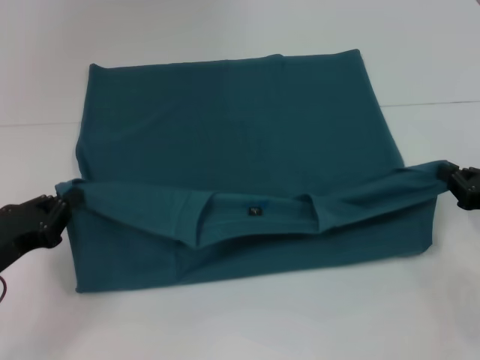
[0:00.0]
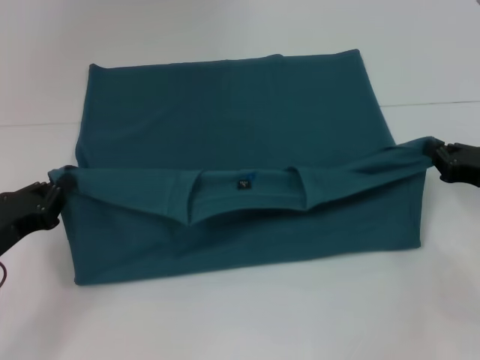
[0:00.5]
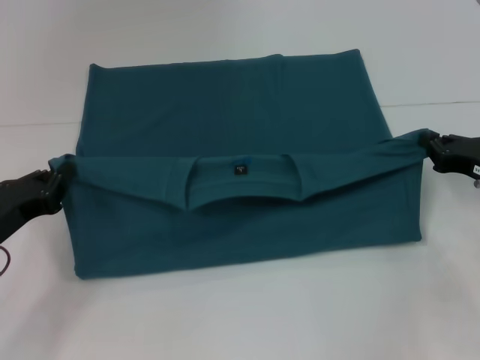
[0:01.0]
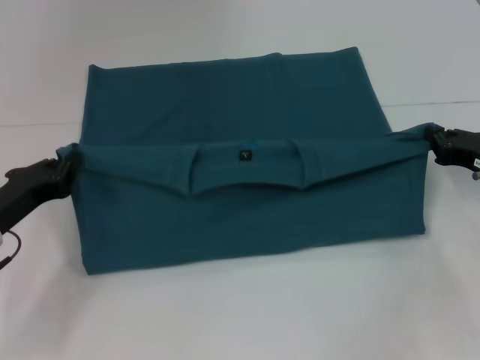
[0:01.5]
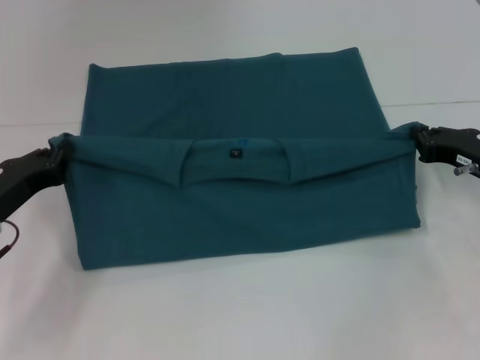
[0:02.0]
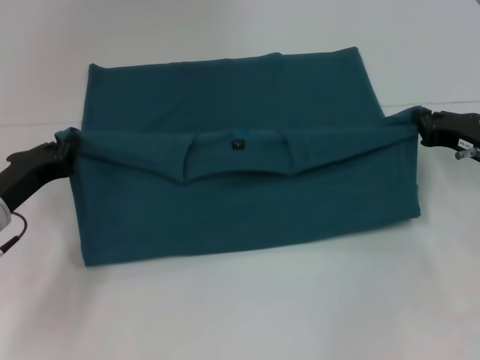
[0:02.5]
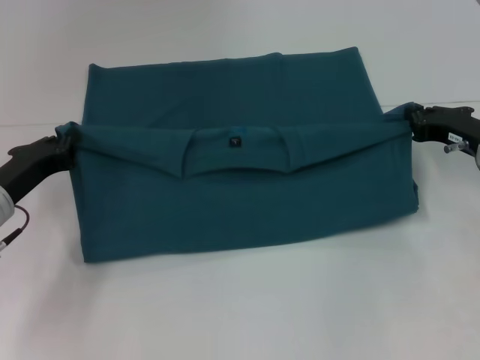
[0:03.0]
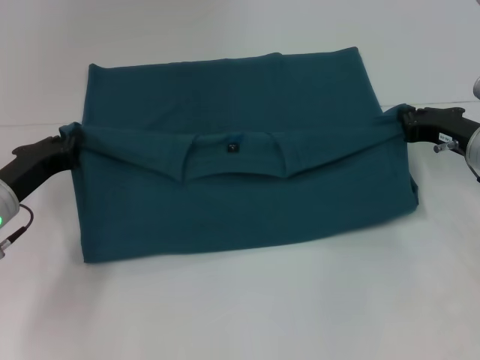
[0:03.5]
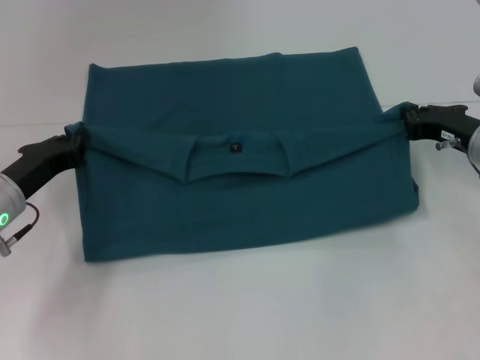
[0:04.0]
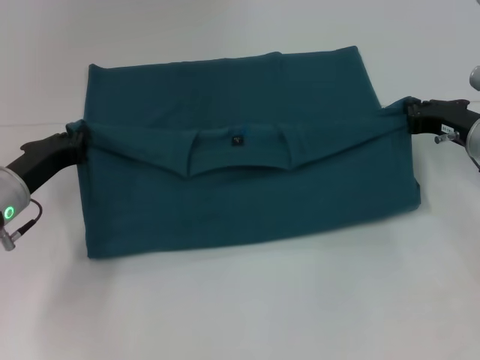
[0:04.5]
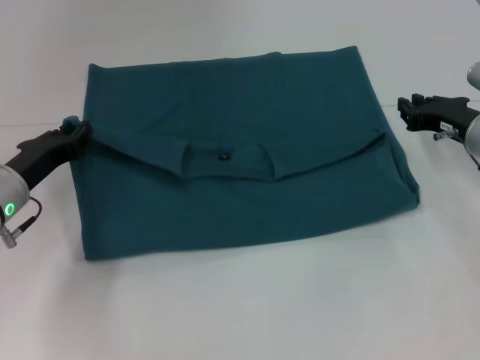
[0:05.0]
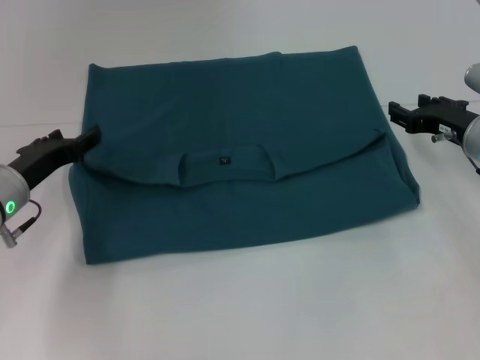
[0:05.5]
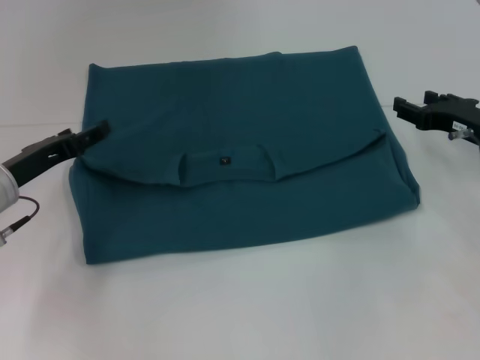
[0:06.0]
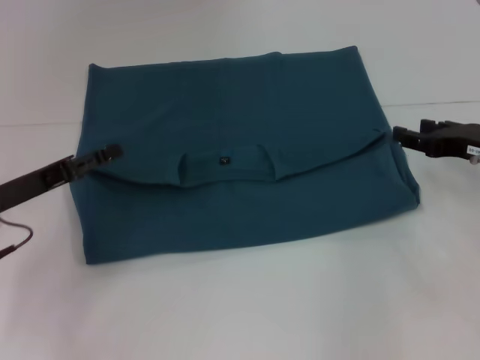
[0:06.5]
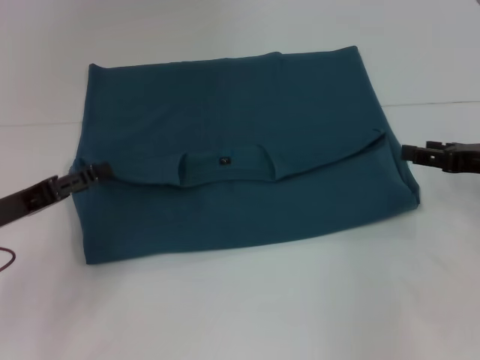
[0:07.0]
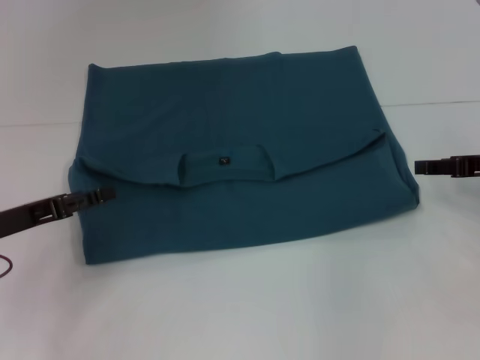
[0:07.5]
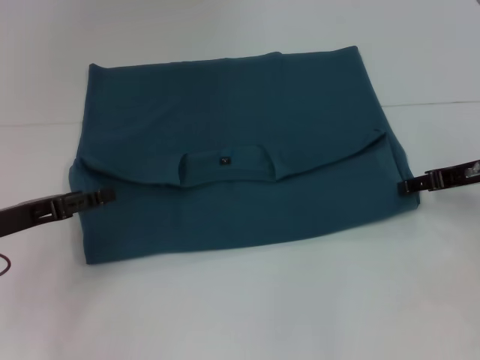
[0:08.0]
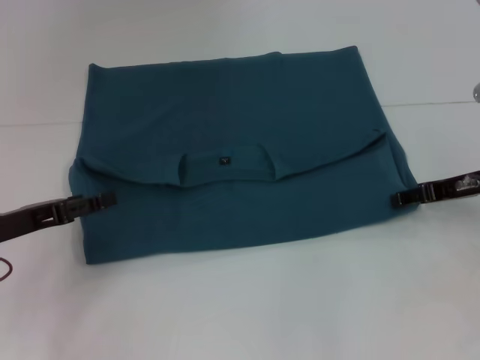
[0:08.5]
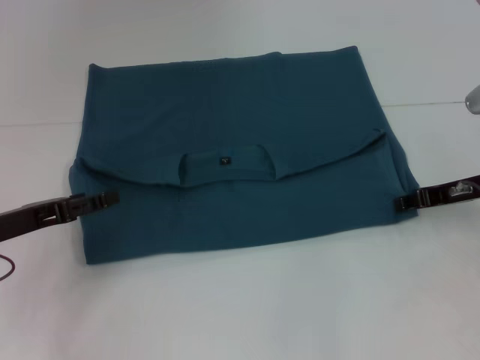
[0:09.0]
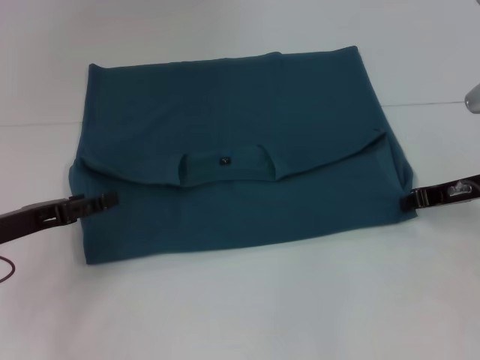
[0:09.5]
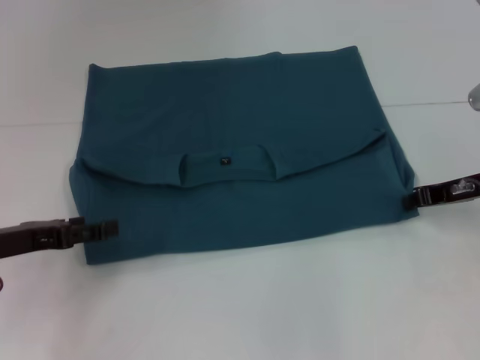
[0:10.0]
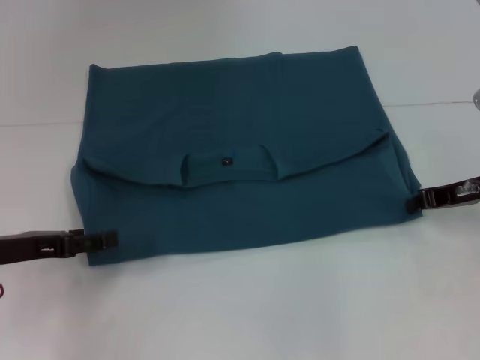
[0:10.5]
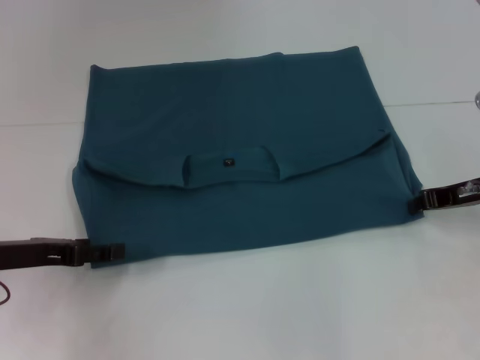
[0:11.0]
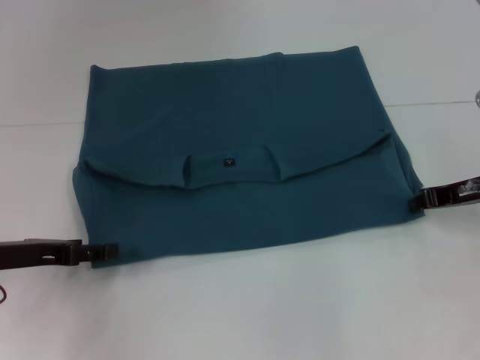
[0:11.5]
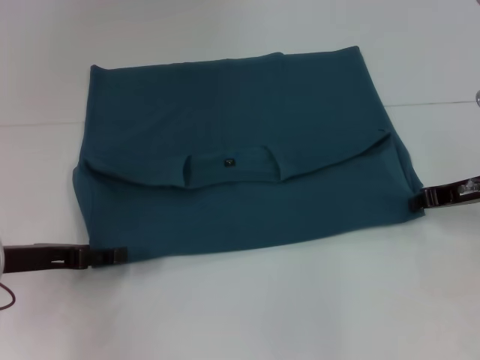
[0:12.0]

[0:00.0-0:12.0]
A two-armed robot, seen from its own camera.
Step, 0:00.0 to 0:05.5: Fold the clothes to the left.
Step, 0:00.0 to 0:05.5: Fold the clothes to the right.
0:00.0 to 0:02.0: Both grippers travel together forward, some 5 cm.
0:02.0 to 0:04.0: The grippers make only small movements.
0:04.0 to 0:06.0: The right gripper opens its fingers. Meanwhile the left gripper opens its fingers.
0:06.0 to 0:08.0: The left gripper shifts approximately 5 cm backward.
0:08.0 to 0:10.0: The right gripper closes up.
0:10.0 to 0:12.0: The grippers stay close to where they were, moving slightly.

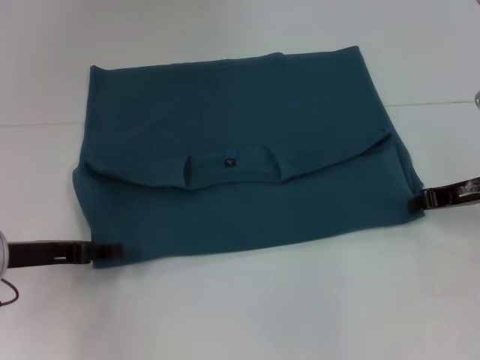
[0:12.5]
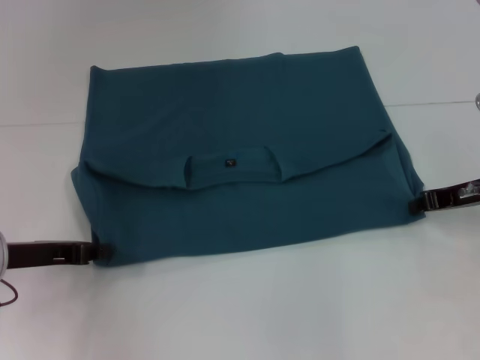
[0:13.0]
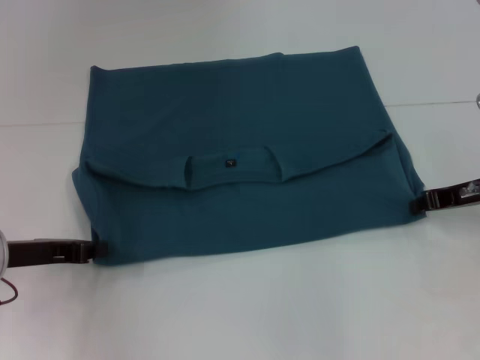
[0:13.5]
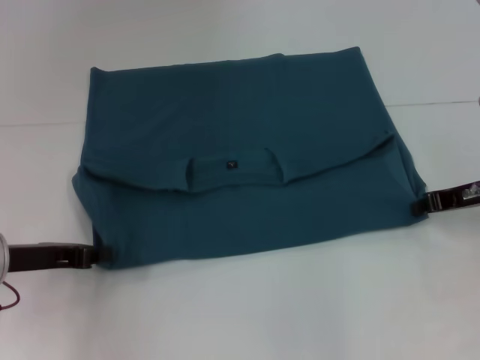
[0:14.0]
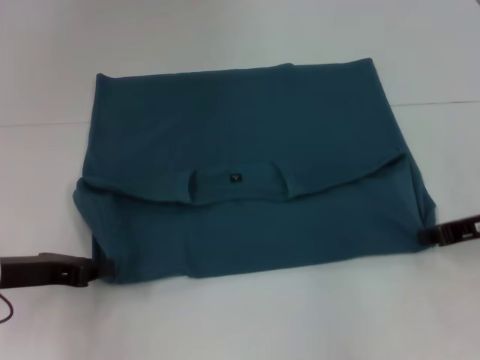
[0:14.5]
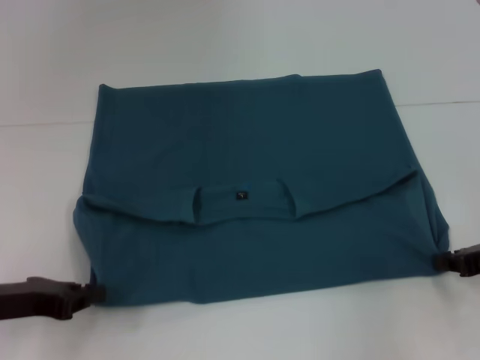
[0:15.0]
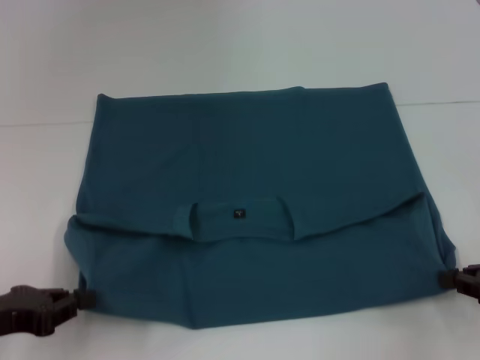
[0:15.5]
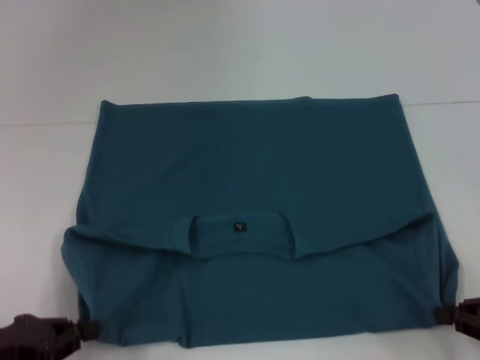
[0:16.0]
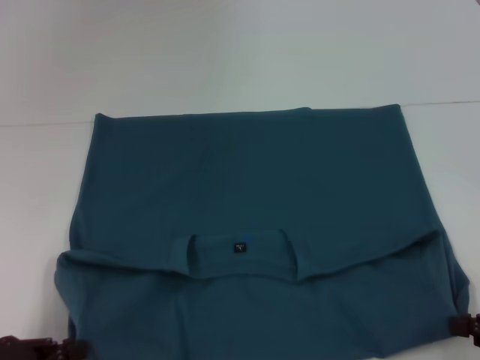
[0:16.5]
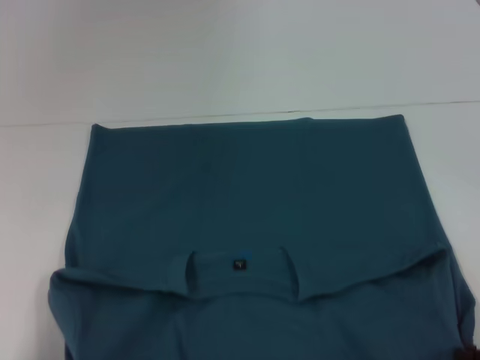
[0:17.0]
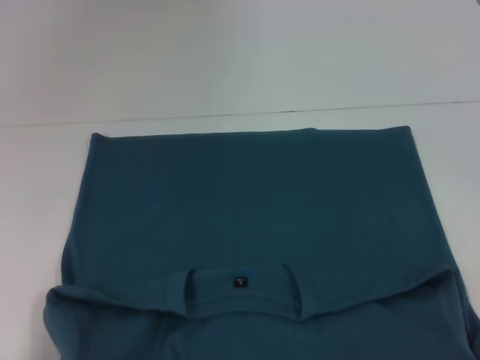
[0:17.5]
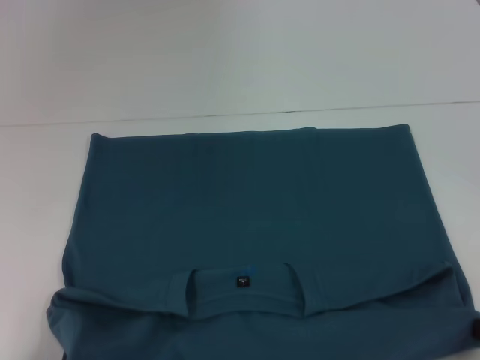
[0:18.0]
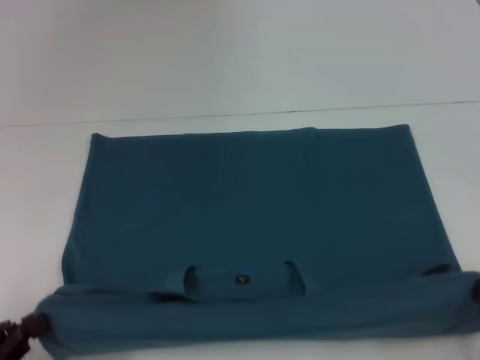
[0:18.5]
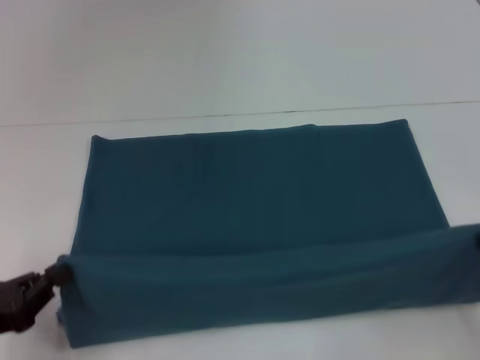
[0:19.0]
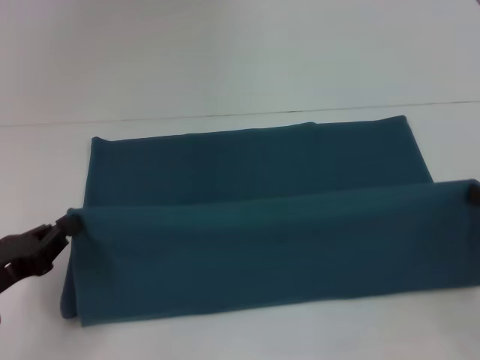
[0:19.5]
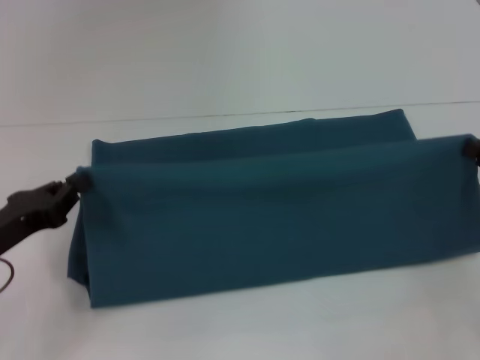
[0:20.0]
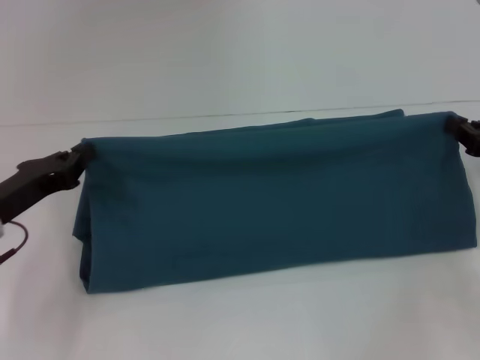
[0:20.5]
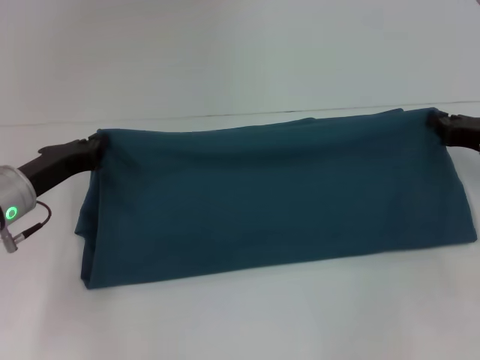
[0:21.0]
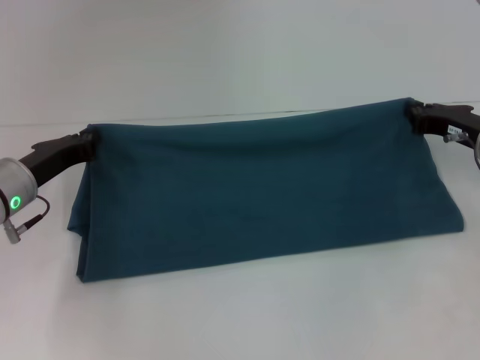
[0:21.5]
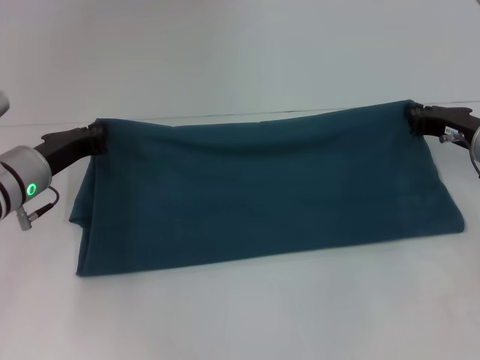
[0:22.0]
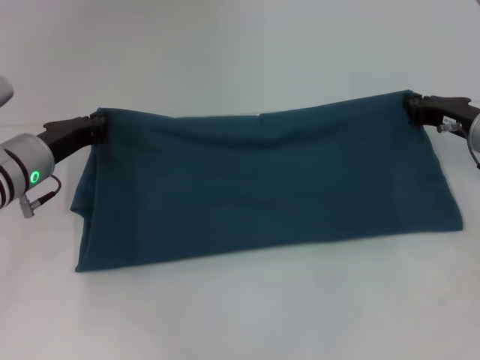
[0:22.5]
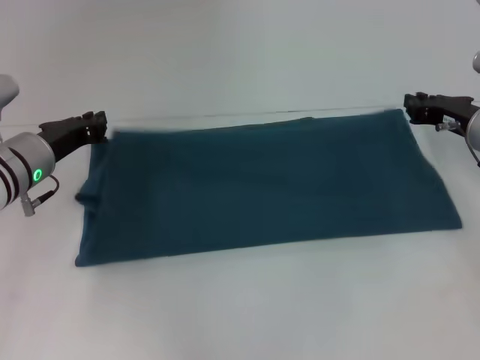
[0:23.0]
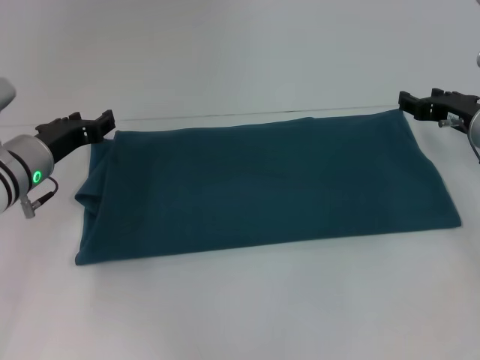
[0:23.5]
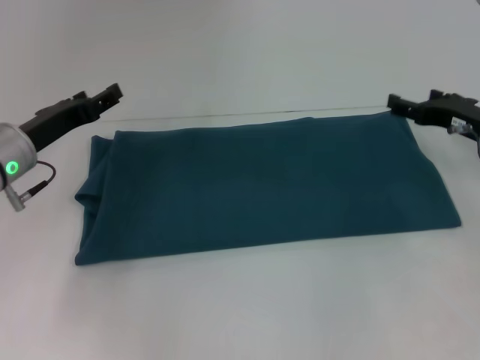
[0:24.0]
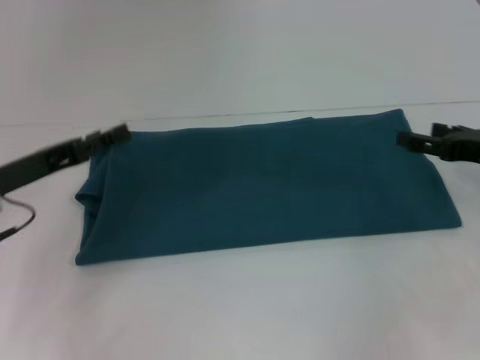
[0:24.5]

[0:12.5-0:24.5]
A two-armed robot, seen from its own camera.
Step, 0:12.5 to 0:17.0: Pull the clothes with your left hand.
Step, 0:12.5 to 0:17.0: Pull the clothes with your right hand.
Step, 0:17.5 to 0:23.0: Fold the clothes to the left.
Step, 0:17.5 to 0:23.0: Fold the clothes to the right.
0:12.5 to 0:14.5: The left gripper closes up.
0:14.5 to 0:16.5: Both grippers travel together backward, roughly 15 cm.
0:16.5 to 0:18.5: The grippers stay close to where they were, moving slightly.
0:18.5 to 0:20.5: The two grippers go about 15 cm forward.
0:20.5 to 0:22.5: The left gripper travels forward by roughly 10 cm. The right gripper is displaced forward and to the left by about 10 cm.
0:22.5 to 0:24.5: The two grippers go approximately 5 cm backward. The left gripper opens up. The right gripper opens.

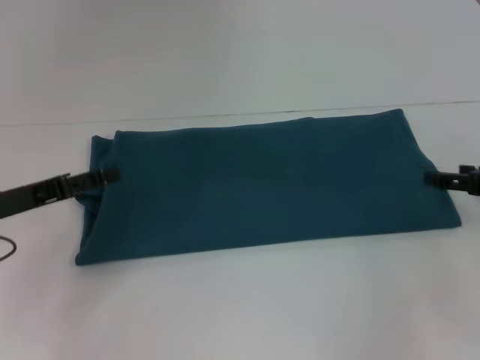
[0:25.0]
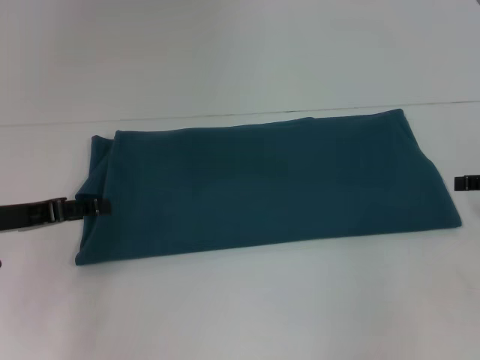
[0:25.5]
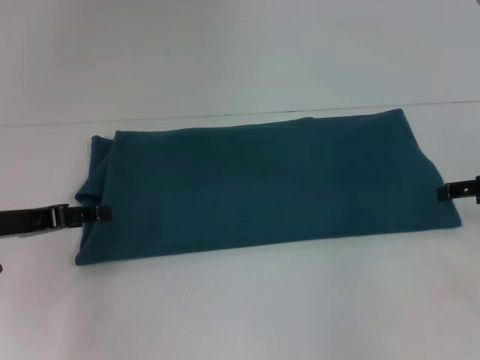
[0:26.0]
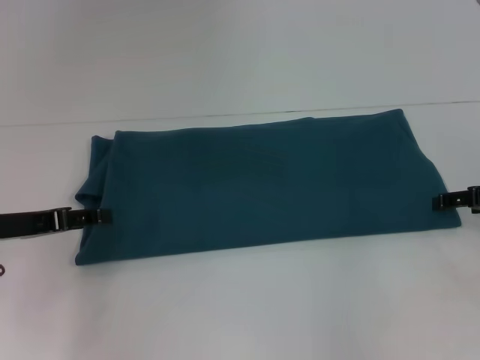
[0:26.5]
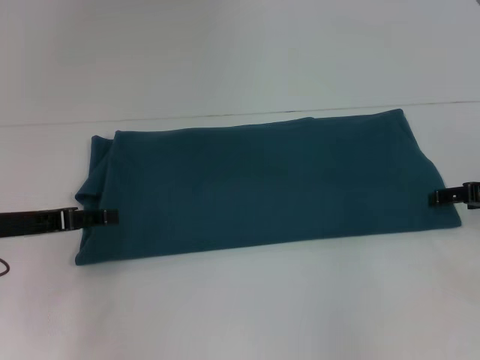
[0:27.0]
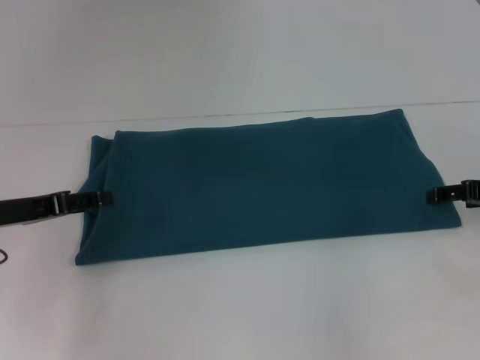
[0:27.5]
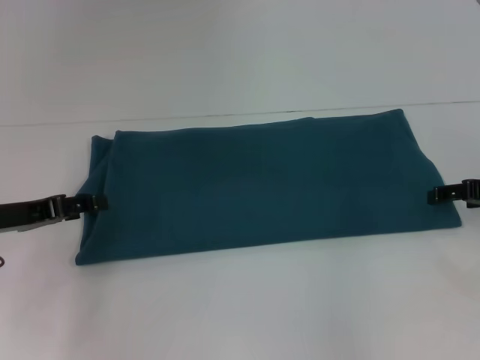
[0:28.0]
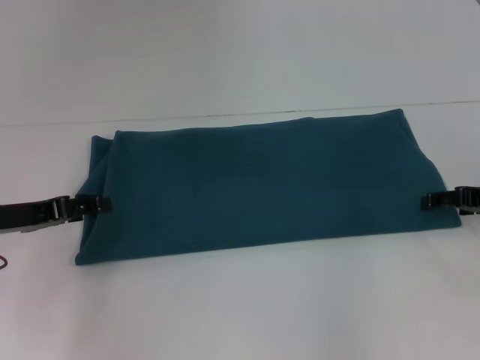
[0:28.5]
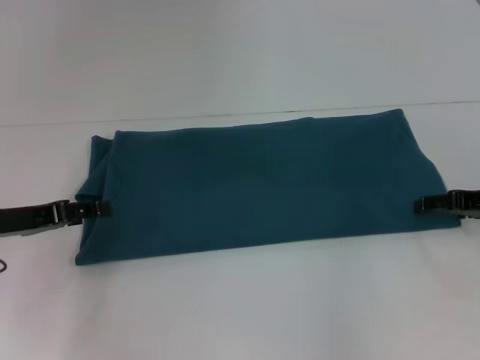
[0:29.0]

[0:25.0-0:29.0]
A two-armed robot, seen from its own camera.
0:27.0 to 0:29.0: There are only small adjustments of the grippers.
